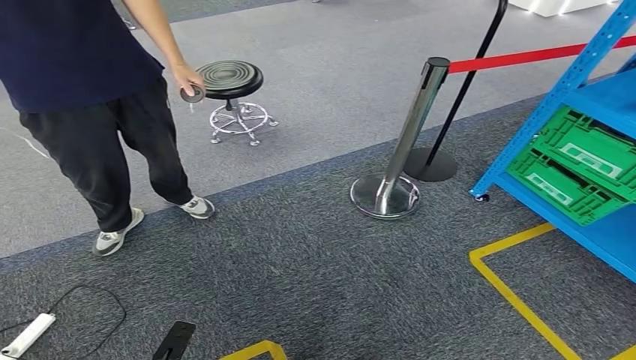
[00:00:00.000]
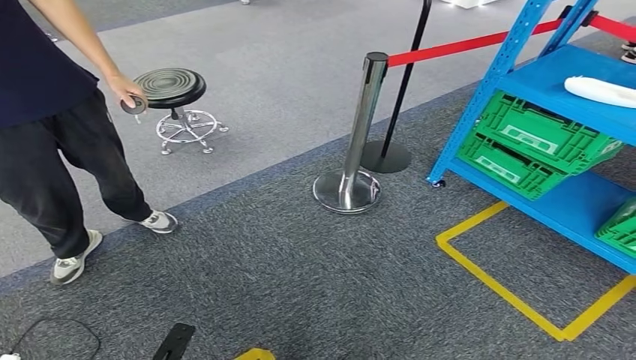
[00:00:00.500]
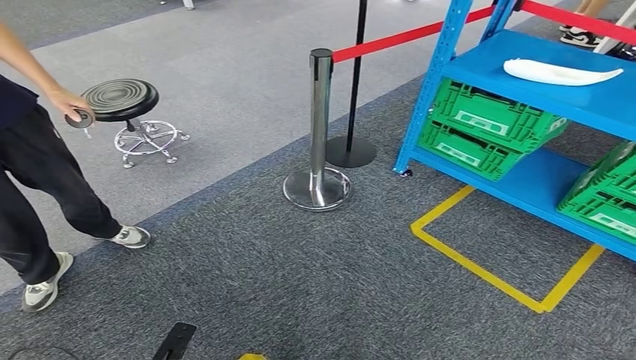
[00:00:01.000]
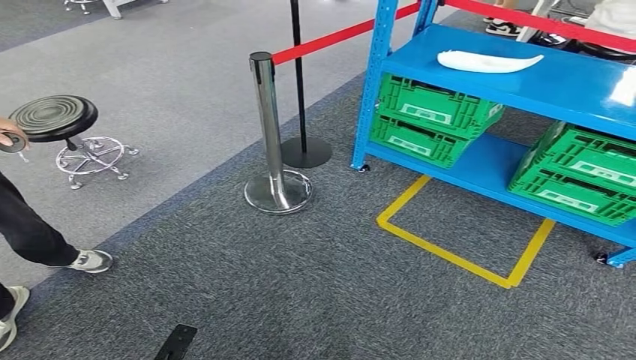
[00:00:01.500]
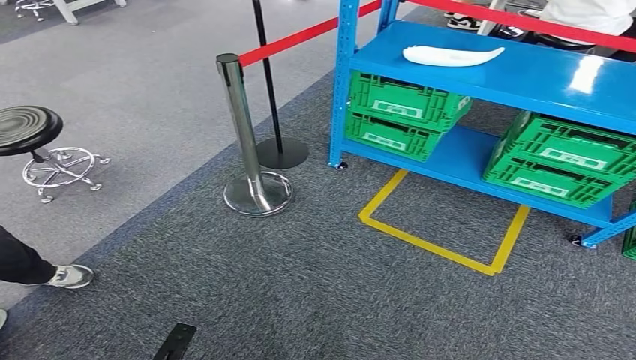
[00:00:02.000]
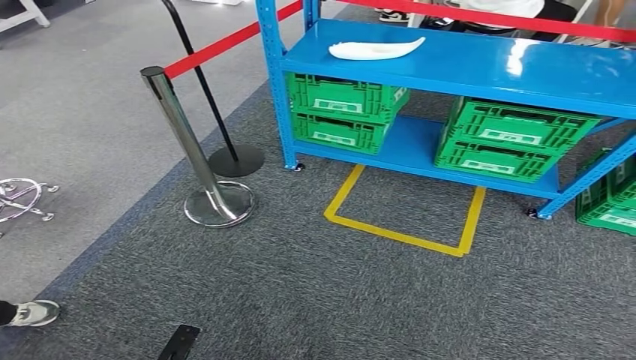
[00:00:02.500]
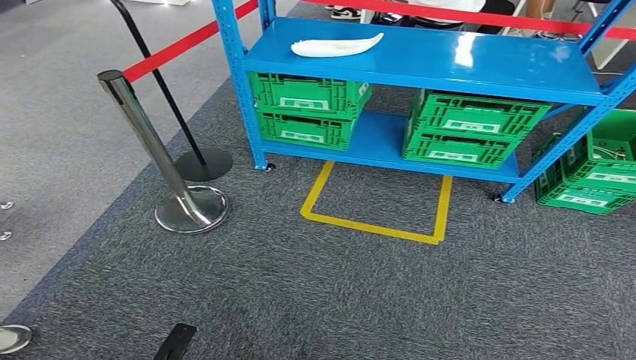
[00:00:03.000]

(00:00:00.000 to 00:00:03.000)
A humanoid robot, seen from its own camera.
Step, 00:00:00.000 - 00:00:03.000: Move to the initial position of the workbench.
